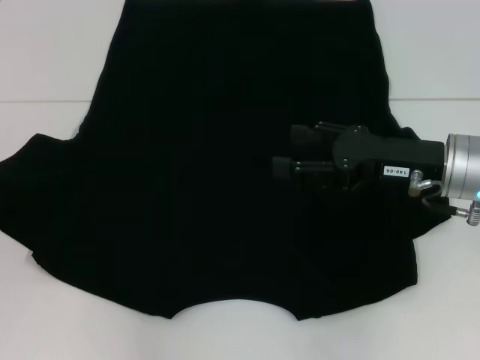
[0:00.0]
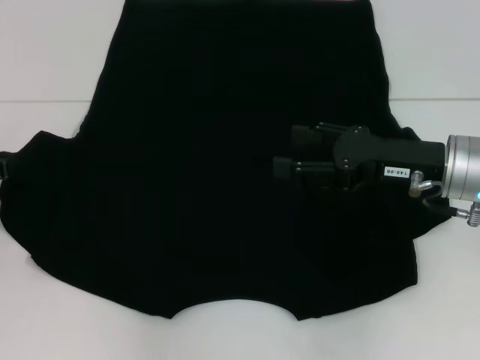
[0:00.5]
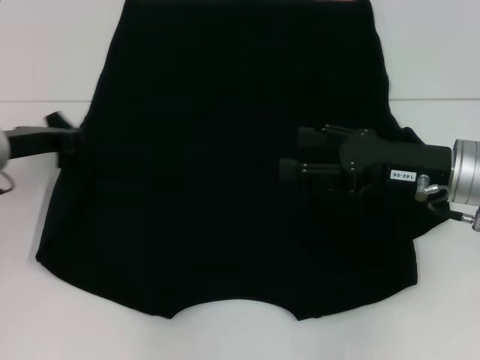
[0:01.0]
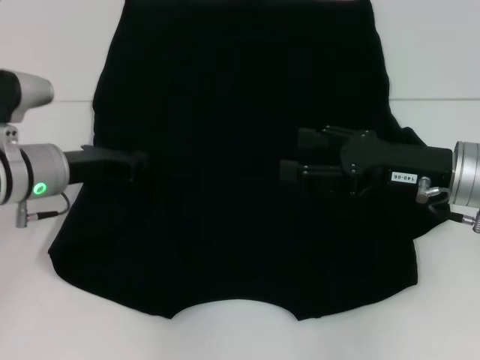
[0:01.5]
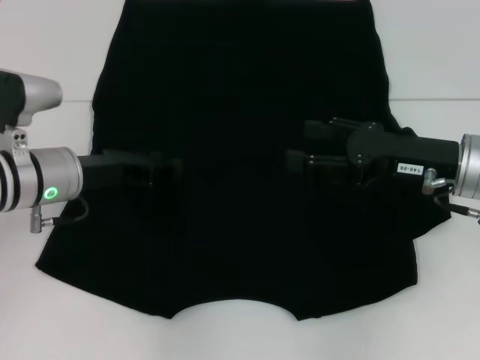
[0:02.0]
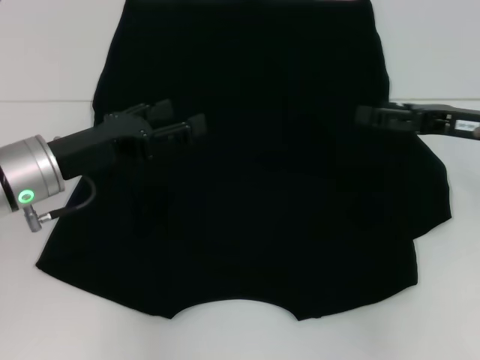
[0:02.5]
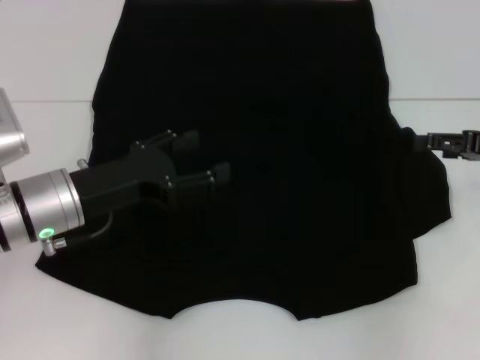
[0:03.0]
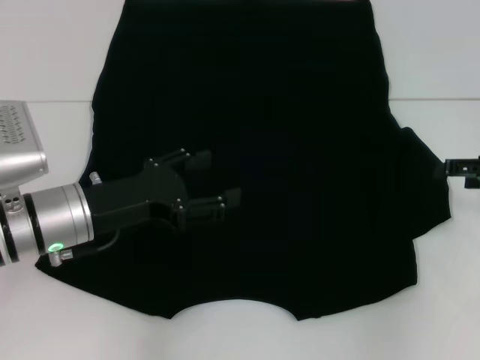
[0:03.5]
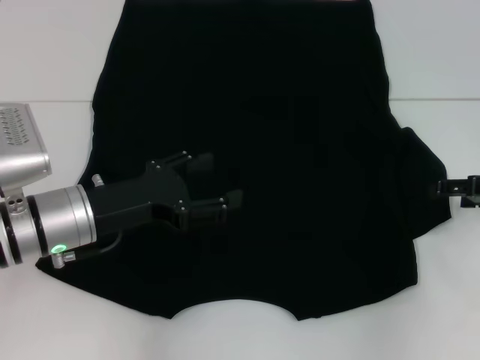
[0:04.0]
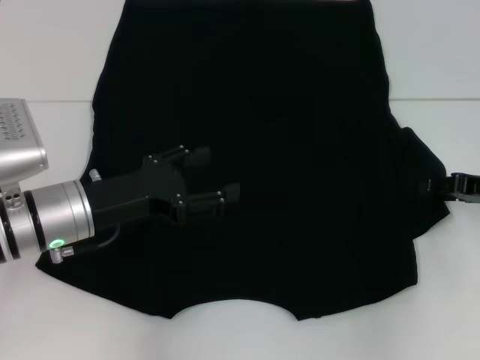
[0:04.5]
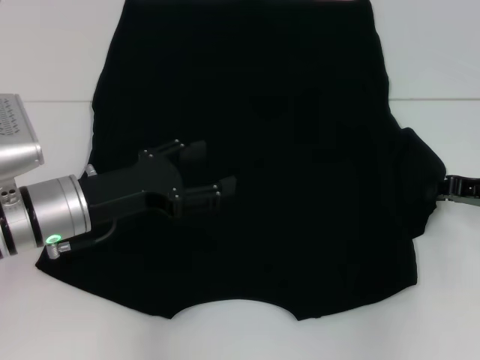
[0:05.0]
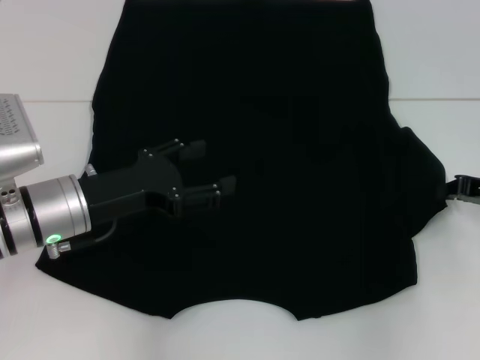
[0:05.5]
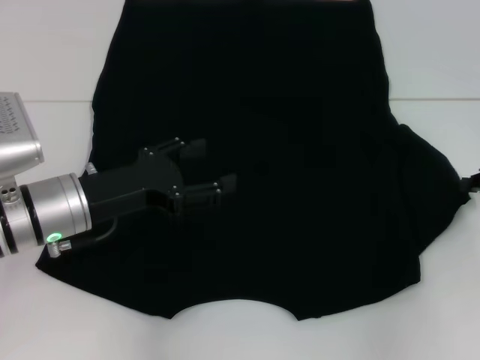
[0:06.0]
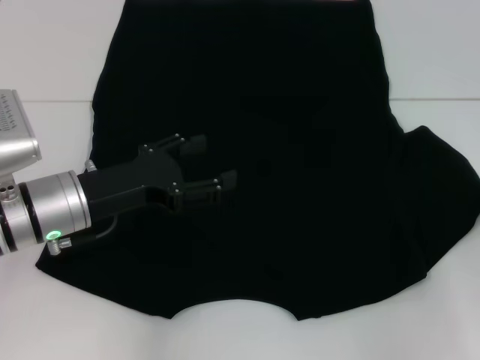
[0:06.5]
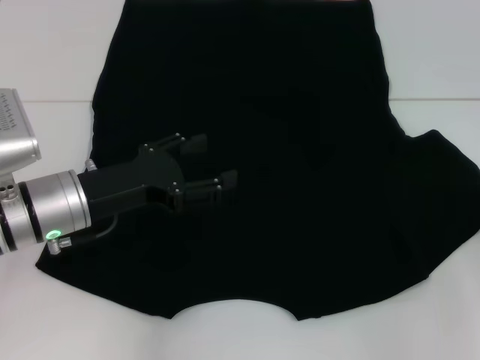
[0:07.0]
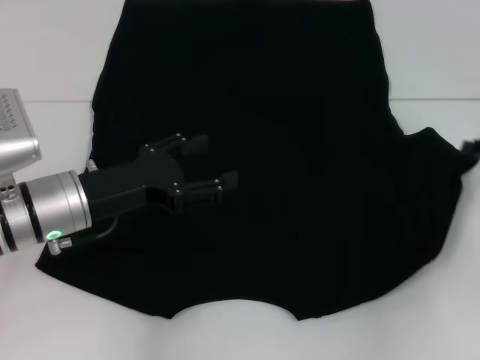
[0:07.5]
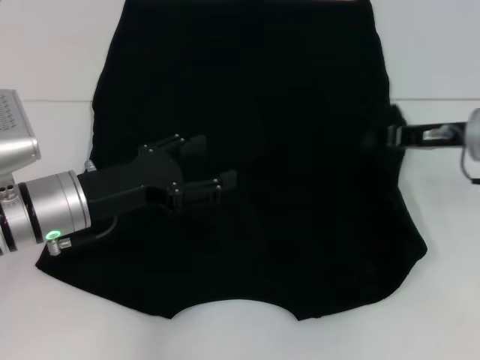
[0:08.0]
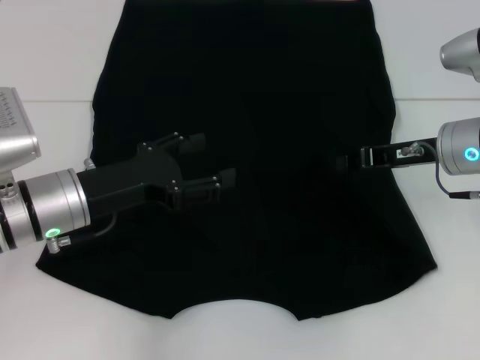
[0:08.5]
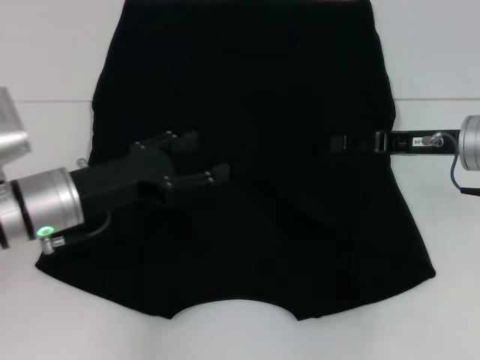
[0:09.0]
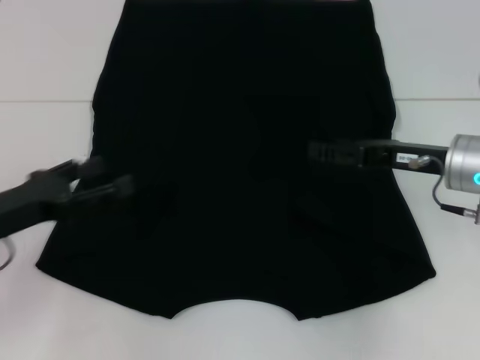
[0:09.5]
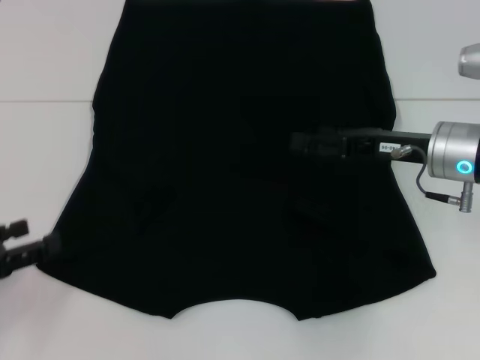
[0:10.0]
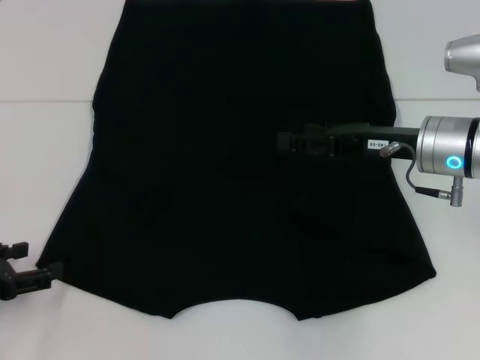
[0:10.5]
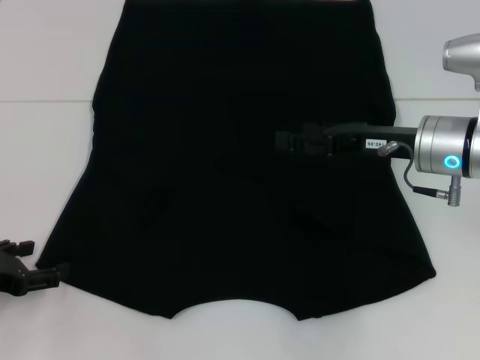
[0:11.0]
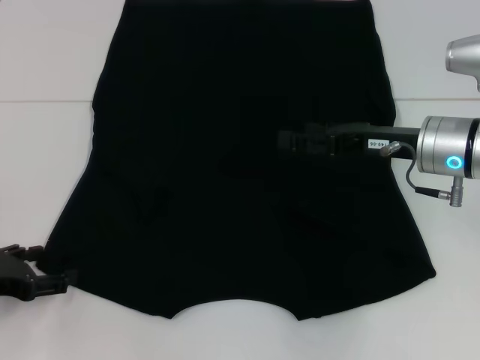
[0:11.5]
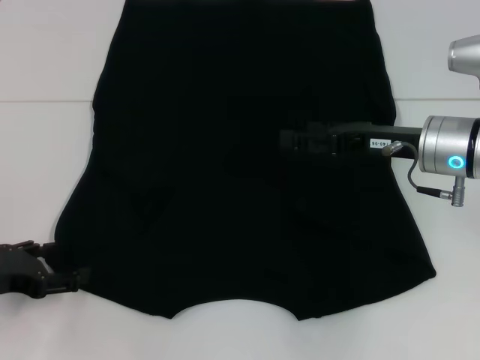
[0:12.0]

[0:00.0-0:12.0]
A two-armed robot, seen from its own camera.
Step, 0:00.0 to 0:03.0: Fold the bottom left sleeve with your left hand.
Step, 0:03.5 to 0:09.0: Fold the bottom right sleeve with your right hand.
0:00.0 to 0:02.0: The left gripper moves to the right, approximately 15 cm.
0:02.0 to 0:04.0: The left gripper moves backward, roughly 5 cm, and opens. Meanwhile the right gripper goes approximately 10 cm to the right.
0:04.0 to 0:06.0: The right gripper closes.
0:06.0 to 0:08.0: The right gripper is displaced to the left by approximately 10 cm.
0:08.0 to 0:10.0: The right gripper changes place by roughly 5 cm, and opens its fingers; the left gripper goes about 15 cm to the left and backward.

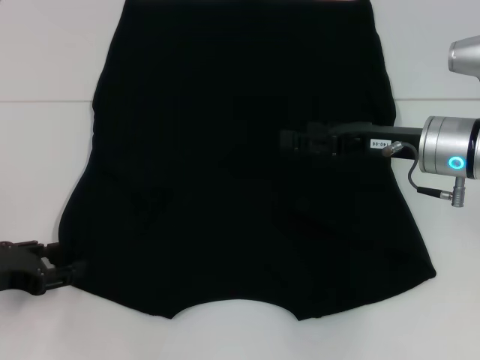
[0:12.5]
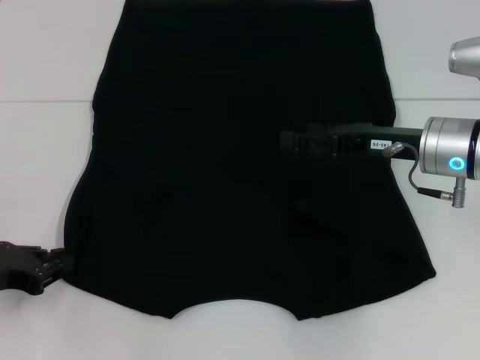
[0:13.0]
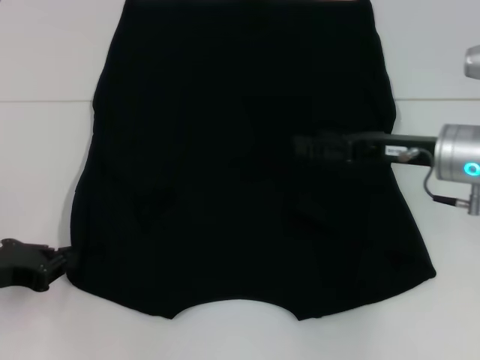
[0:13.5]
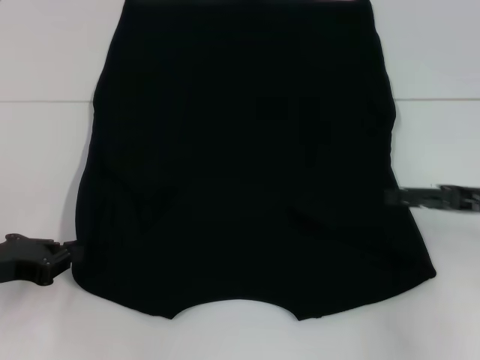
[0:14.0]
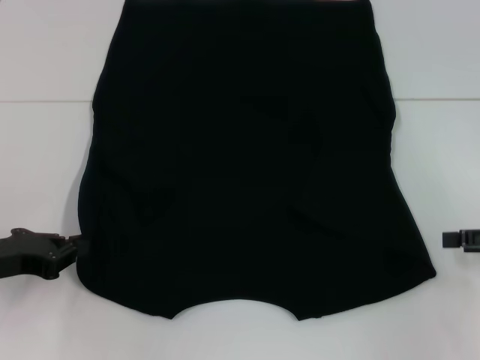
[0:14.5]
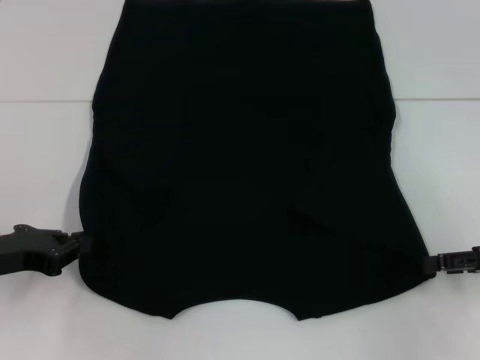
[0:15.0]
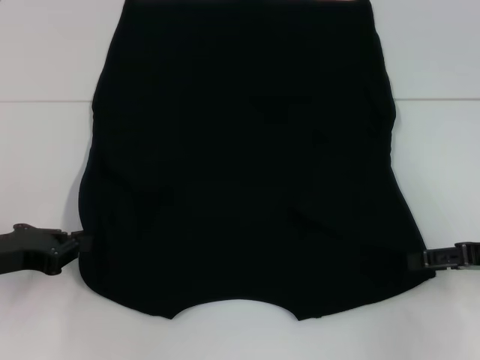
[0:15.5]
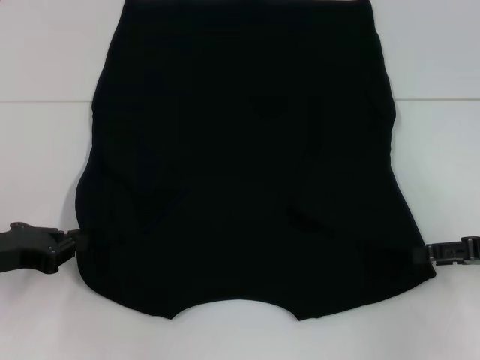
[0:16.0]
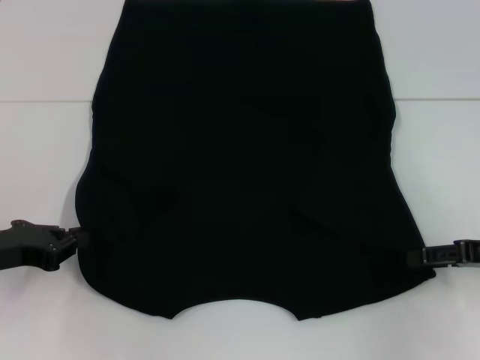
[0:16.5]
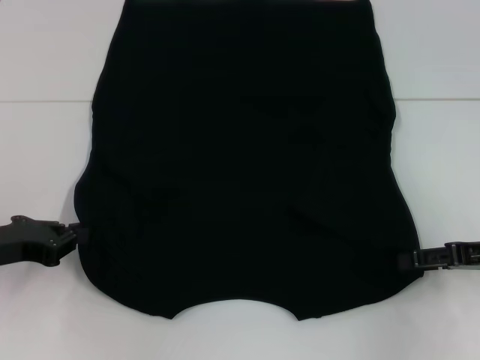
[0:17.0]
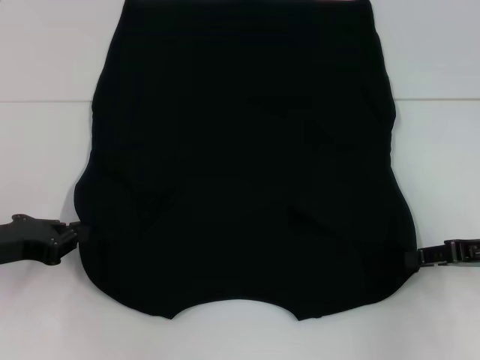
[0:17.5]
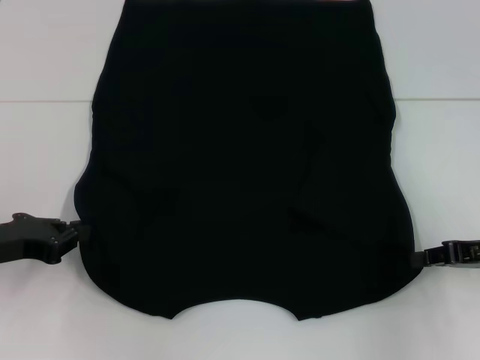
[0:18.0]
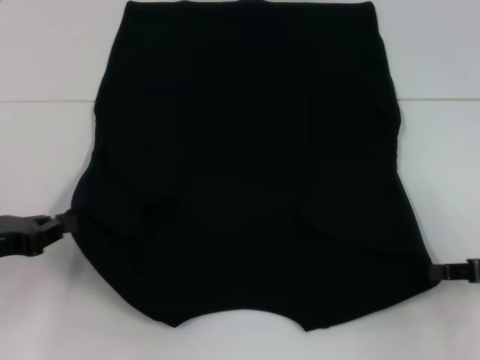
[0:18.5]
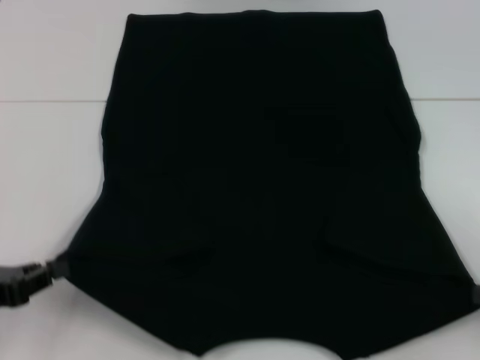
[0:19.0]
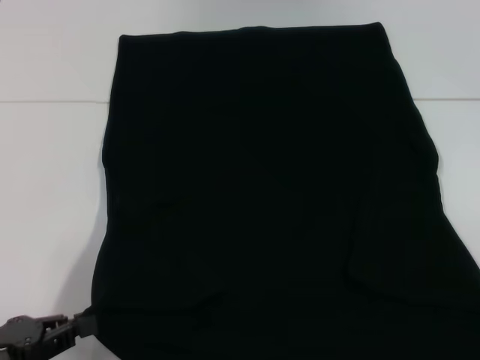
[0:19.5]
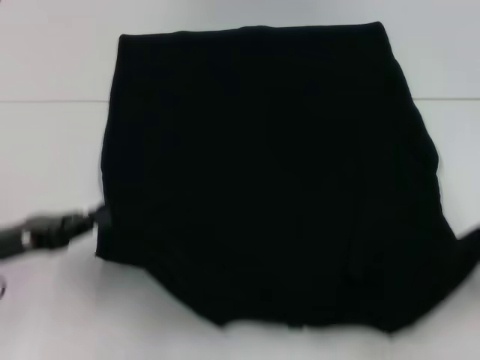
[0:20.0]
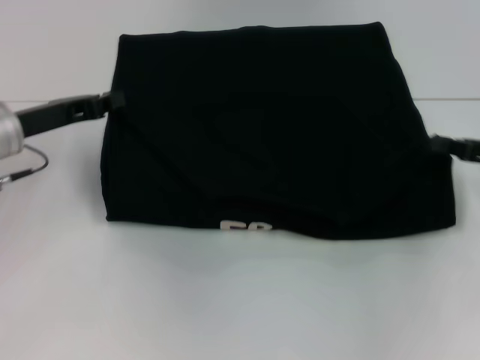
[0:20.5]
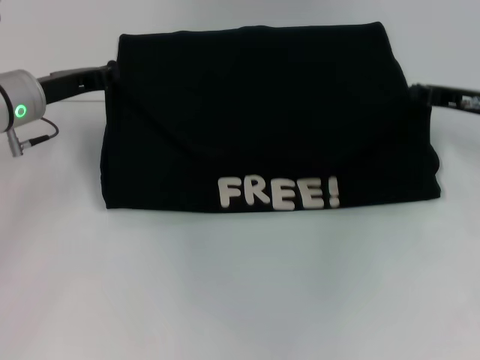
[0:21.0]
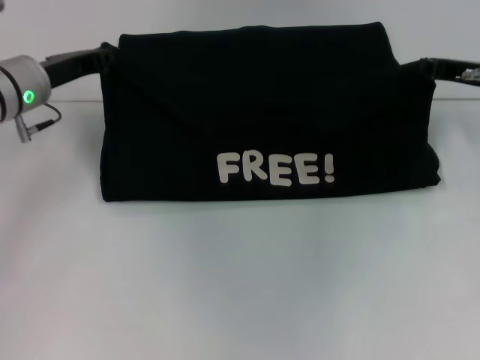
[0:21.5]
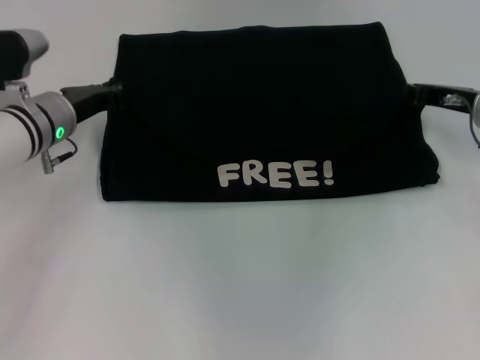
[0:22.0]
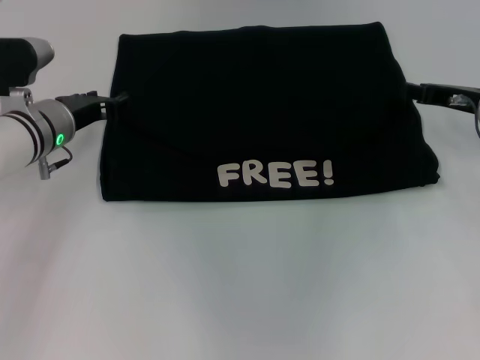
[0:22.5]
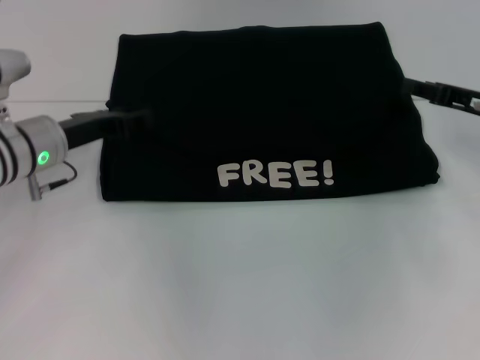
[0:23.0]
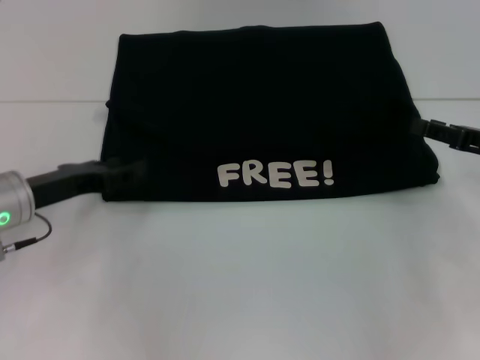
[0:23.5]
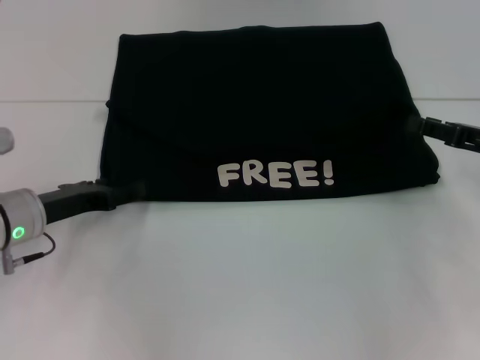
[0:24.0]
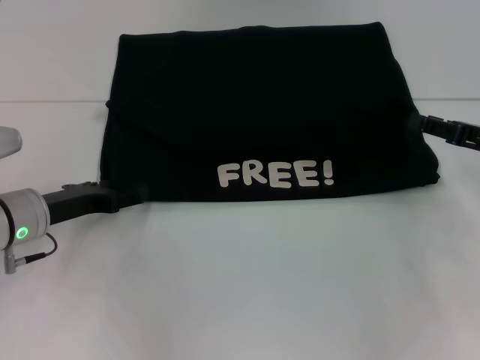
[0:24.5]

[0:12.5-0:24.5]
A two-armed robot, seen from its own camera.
Step, 0:12.5 to 0:18.5: Grab the bottom left corner with your left hand.
Step, 0:12.5 to 0:18.5: Grab the bottom right corner with your right hand.
Step, 0:19.0 to 0:23.0: Fold the clothes with your left hand.
Step, 0:19.0 to 0:23.0: Fold the clothes with your right hand.
0:12.5 to 0:14.5: The left gripper closes up; the right gripper moves to the right and backward, some 20 cm.
0:14.5 to 0:16.5: The grippers stay close to where they were, moving slightly.
0:16.5 to 0:18.5: The right gripper closes.
0:18.5 to 0:20.5: The right gripper moves forward, approximately 5 cm; the left gripper goes approximately 15 cm forward and to the right.
0:20.5 to 0:22.5: The left gripper shifts by roughly 10 cm, and opens; the right gripper heads forward and to the left, covering approximately 10 cm, and opens.
0:22.5 to 0:24.5: Both grippers move backward, some 10 cm. The left gripper opens up.

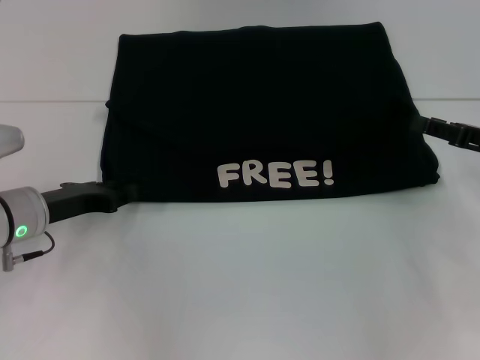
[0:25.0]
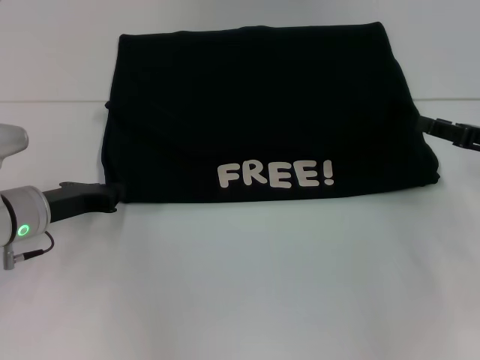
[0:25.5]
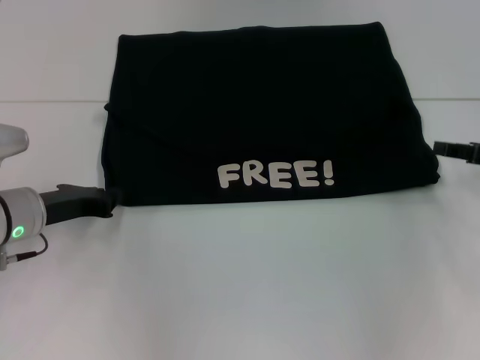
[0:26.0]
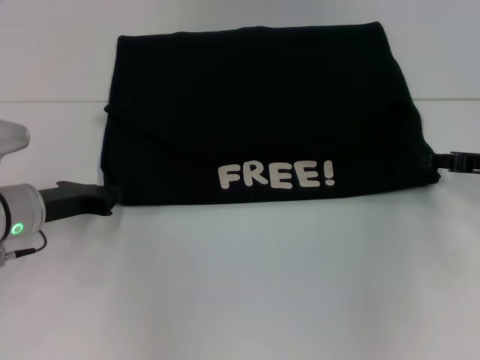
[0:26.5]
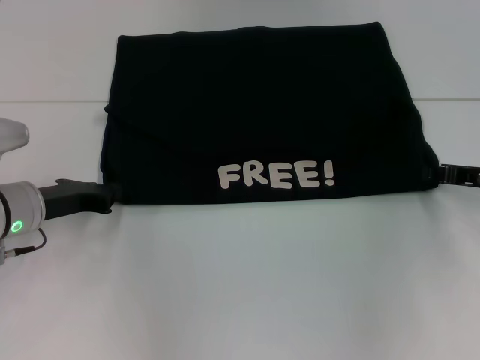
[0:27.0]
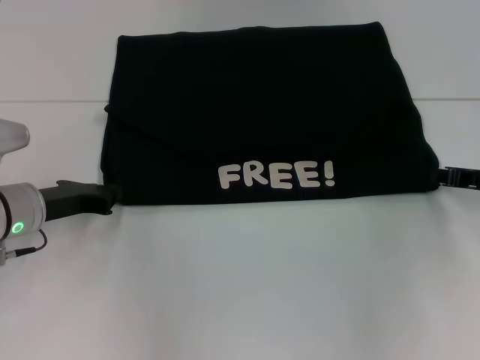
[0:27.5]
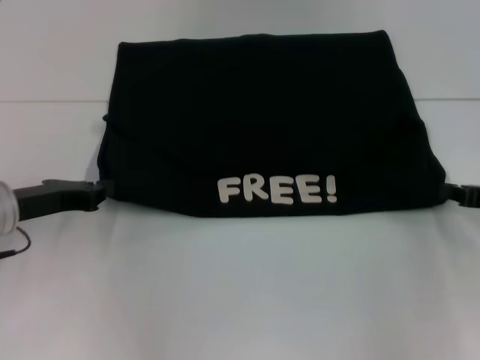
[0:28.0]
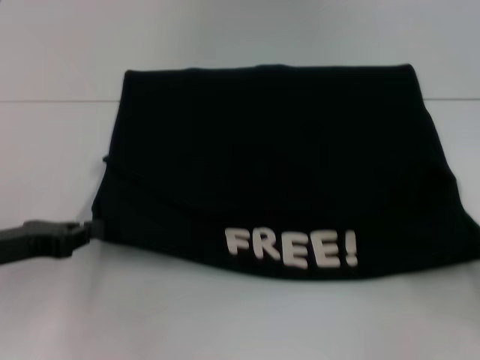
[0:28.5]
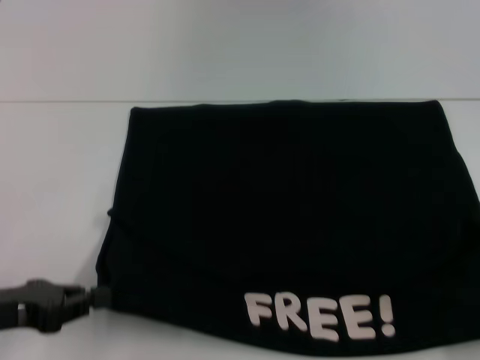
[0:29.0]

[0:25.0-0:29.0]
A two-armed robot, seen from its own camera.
0:25.0 to 0:27.0: The left gripper closes its fingers.
0:27.0 to 0:29.0: The left gripper goes some 10 cm backward, while the right gripper shifts some 25 cm backward and to the right, and closes.
